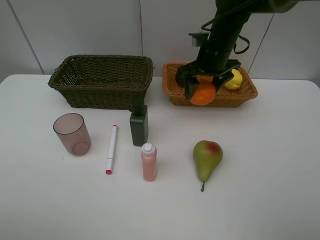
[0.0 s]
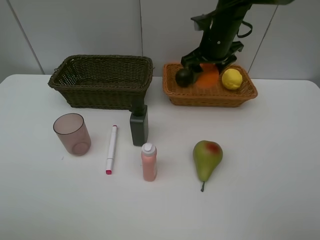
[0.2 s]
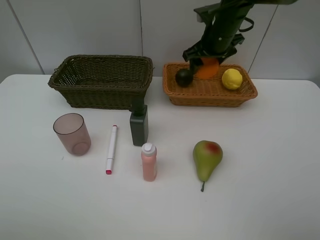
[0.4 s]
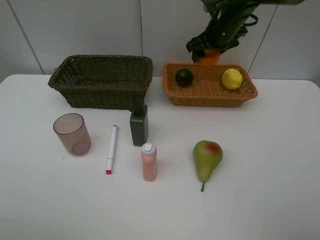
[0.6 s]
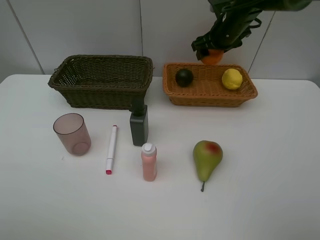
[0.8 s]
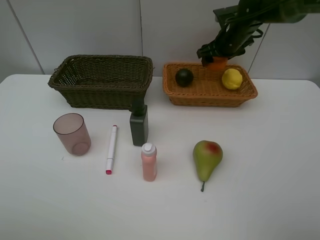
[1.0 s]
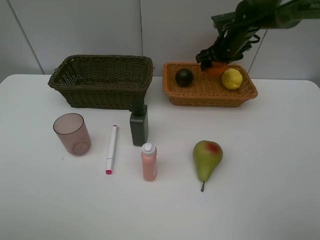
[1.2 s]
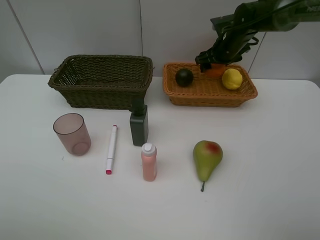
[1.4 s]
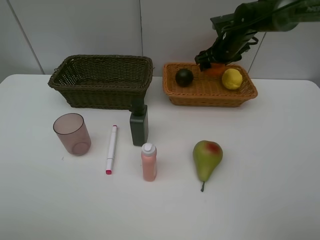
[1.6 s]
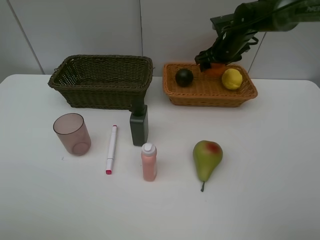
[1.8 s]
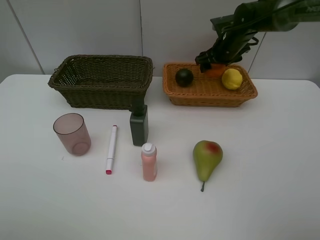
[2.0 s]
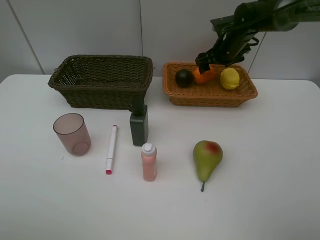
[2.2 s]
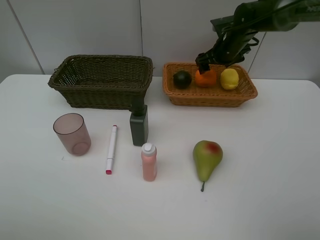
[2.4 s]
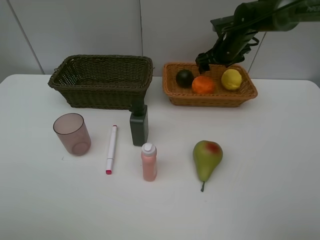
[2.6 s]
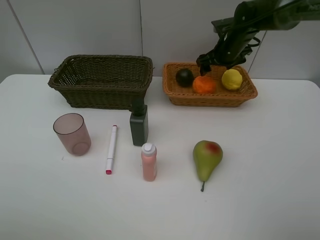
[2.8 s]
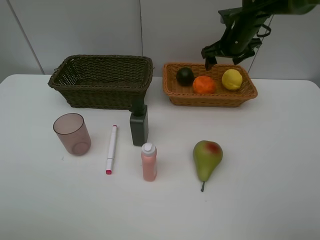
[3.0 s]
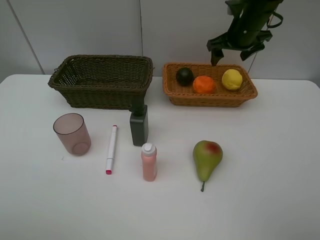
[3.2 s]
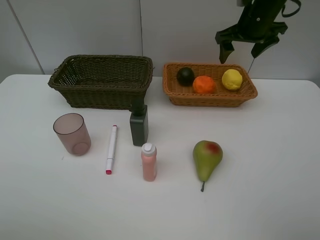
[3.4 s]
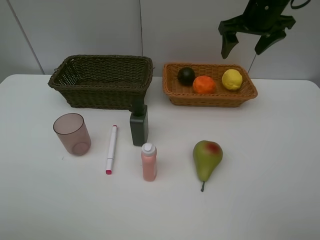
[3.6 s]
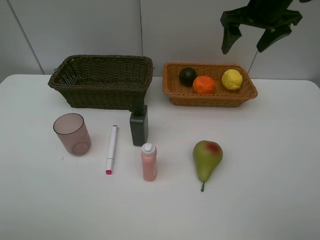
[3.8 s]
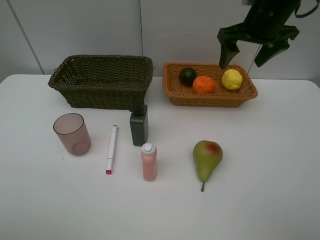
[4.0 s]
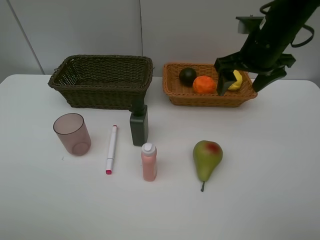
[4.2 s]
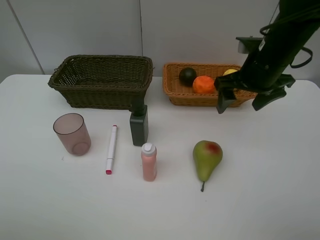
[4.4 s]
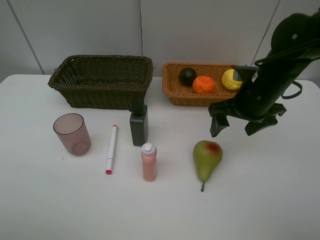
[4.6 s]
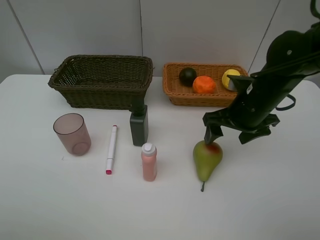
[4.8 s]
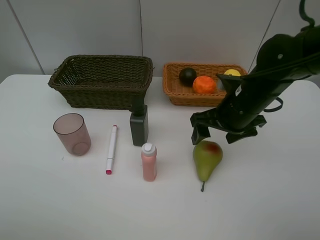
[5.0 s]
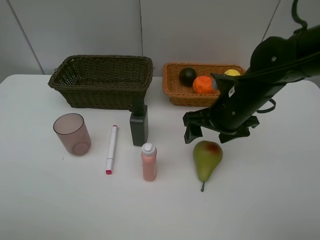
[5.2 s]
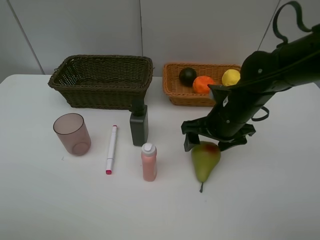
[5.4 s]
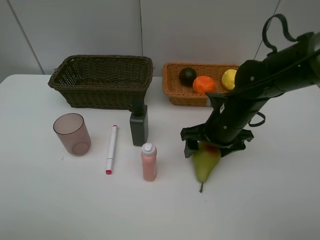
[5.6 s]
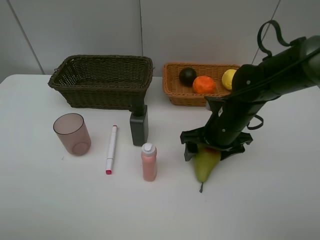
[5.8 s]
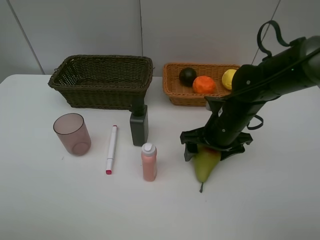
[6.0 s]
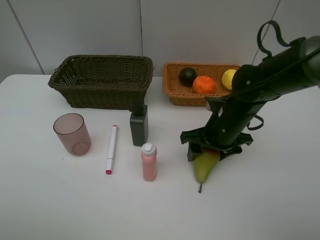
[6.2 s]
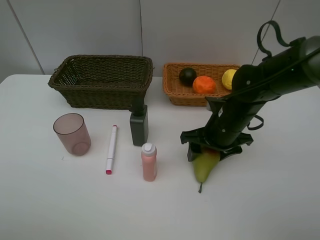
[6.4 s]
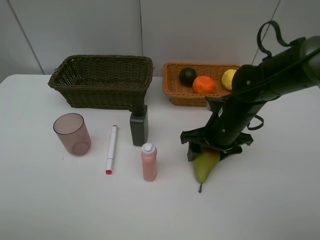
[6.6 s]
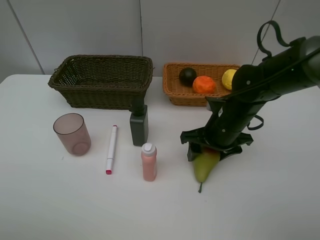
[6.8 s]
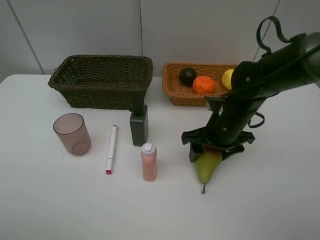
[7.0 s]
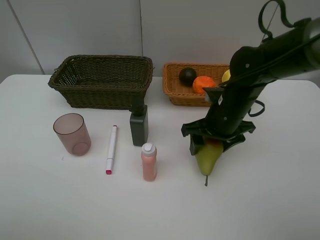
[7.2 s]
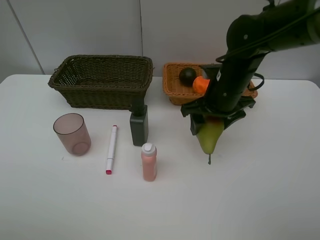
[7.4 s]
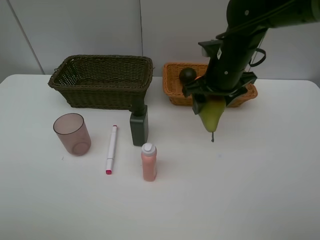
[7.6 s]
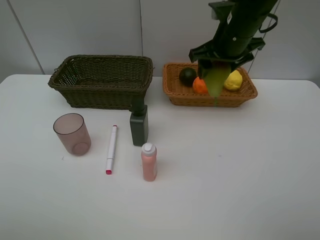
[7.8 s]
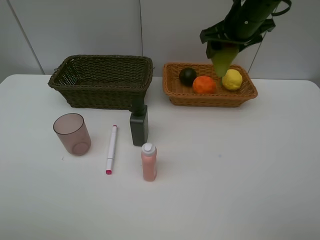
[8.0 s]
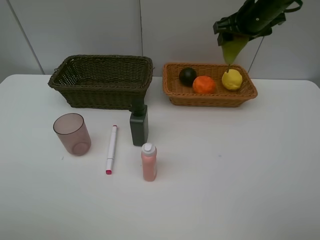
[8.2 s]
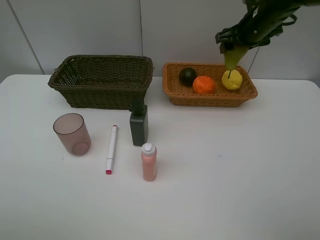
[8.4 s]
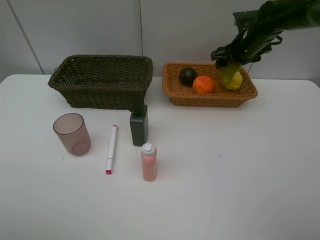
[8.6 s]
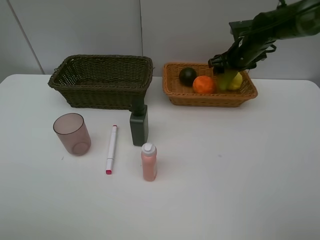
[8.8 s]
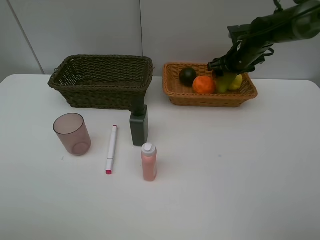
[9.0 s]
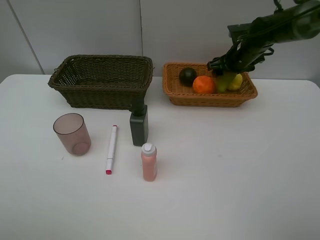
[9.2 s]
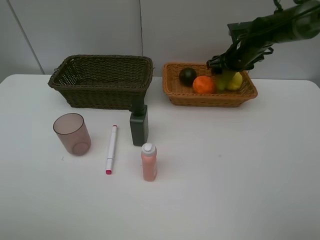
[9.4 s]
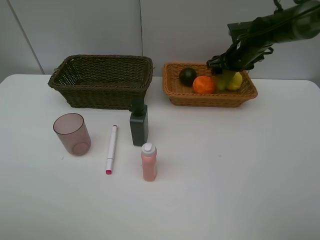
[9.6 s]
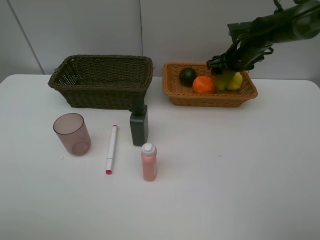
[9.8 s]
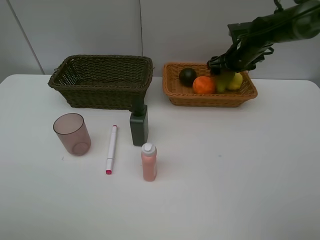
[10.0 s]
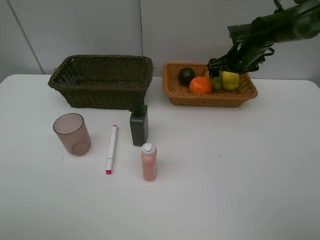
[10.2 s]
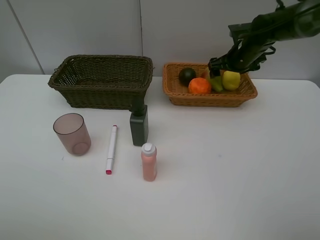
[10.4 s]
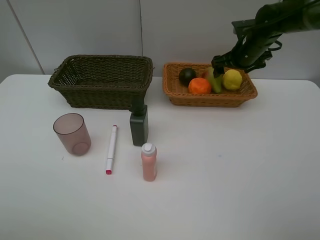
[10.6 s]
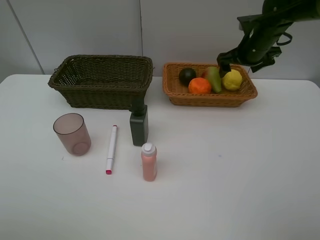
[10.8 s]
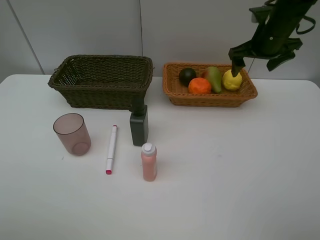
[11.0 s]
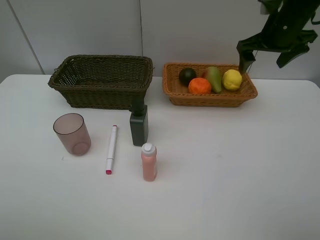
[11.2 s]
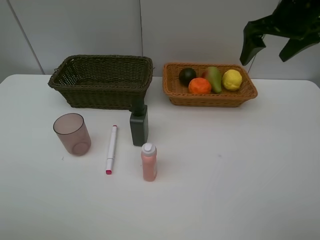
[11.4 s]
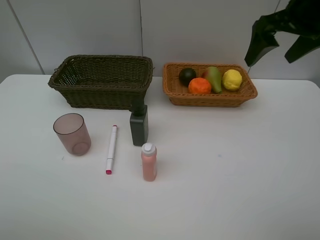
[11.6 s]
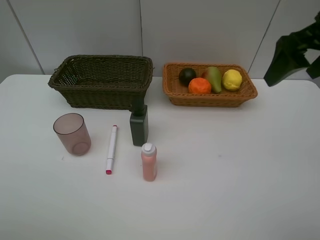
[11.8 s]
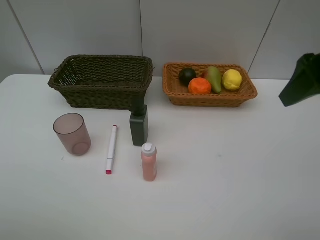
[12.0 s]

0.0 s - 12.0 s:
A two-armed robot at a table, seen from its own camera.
Task of the whole recording: Place multiple objects separately in different baskets.
Step, 0.0 s - 2.8 s: Place the orange in the light basket with right gripper.
Step, 3.0 s - 7.2 s: Pick up the pear with right gripper.
Step, 7.4 s - 10.6 s: Place the pear in the light basket with right gripper.
0.0 s - 1.6 s: The right gripper shifts some 10 cm forward and to the right.
1.6 s - 3.0 s: The grippers move only a little.
3.0 s - 4.4 s: The right gripper heads backward, covering approximately 15 cm.
4.4 s - 6.0 s: The right gripper heads downward and to the left, covering about 10 cm.
6.0 s - 7.6 s: The right gripper goes some 10 cm upward and forward, and closes up.
7.6 s - 9.0 s: The right gripper moves forward and to the right, about 15 cm.
9.0 s - 10.4 s: The right gripper opens up.
10.4 s - 12.0 s: The right gripper shifts some 30 cm backward and upward.

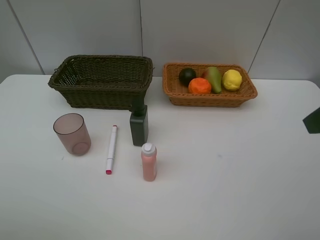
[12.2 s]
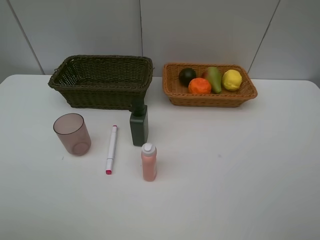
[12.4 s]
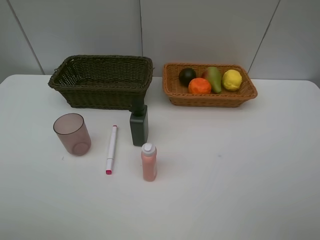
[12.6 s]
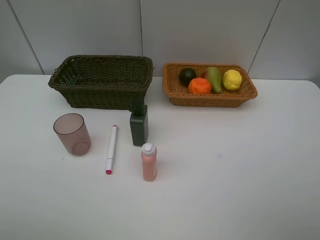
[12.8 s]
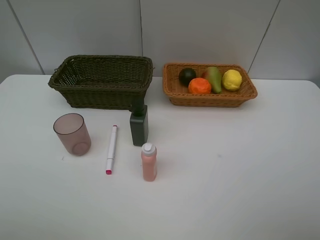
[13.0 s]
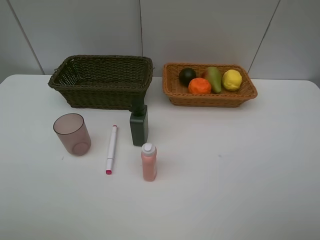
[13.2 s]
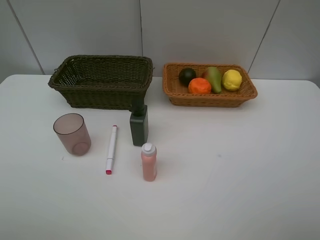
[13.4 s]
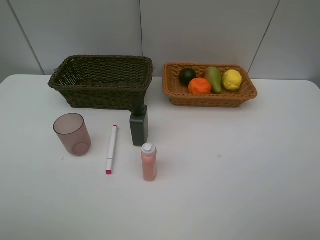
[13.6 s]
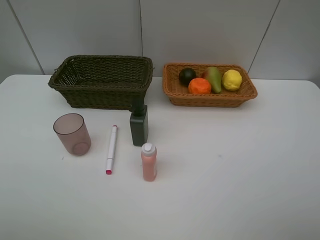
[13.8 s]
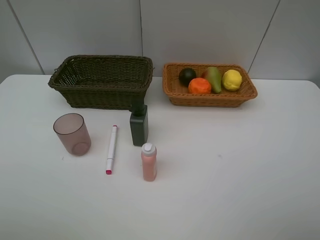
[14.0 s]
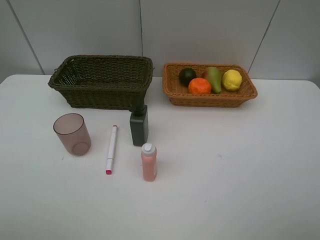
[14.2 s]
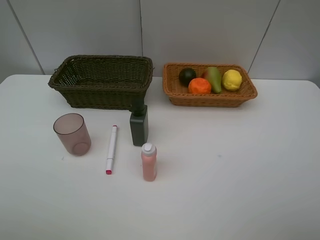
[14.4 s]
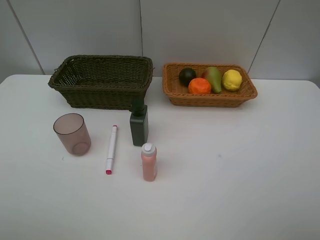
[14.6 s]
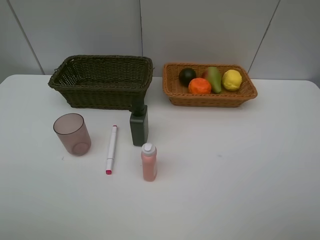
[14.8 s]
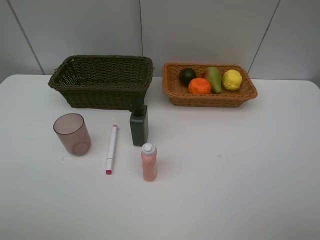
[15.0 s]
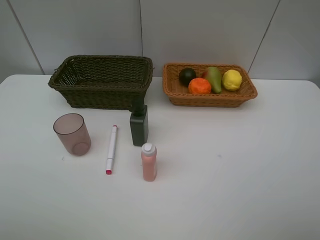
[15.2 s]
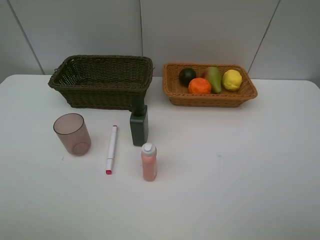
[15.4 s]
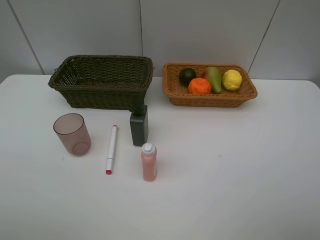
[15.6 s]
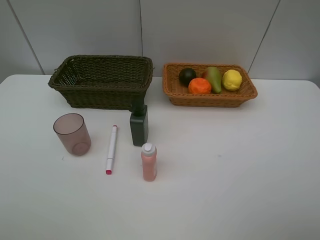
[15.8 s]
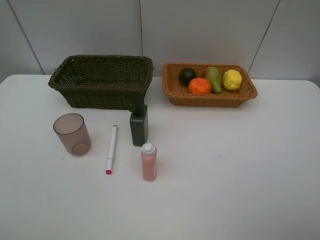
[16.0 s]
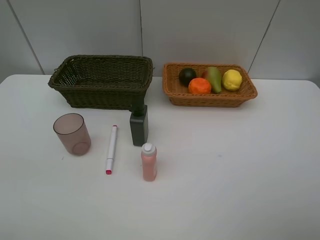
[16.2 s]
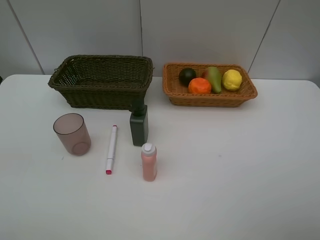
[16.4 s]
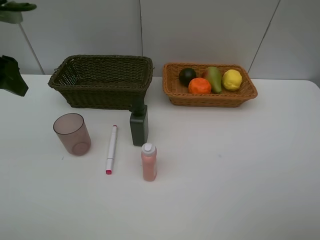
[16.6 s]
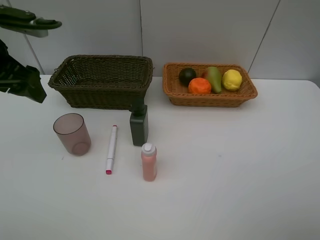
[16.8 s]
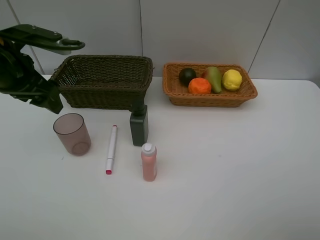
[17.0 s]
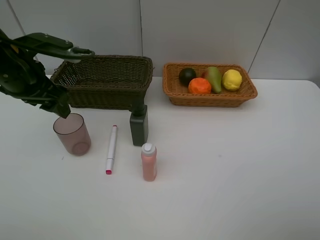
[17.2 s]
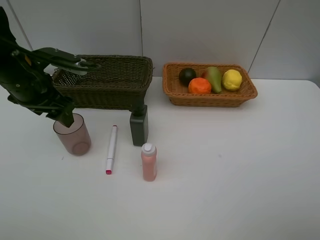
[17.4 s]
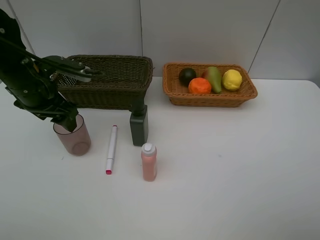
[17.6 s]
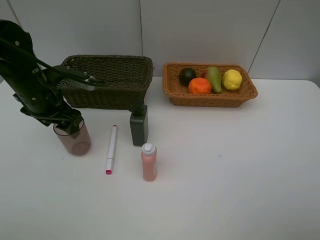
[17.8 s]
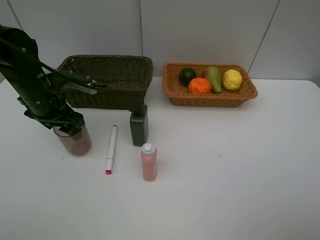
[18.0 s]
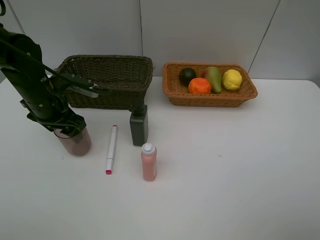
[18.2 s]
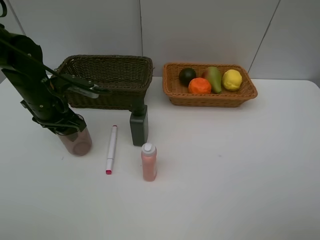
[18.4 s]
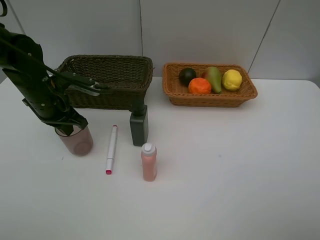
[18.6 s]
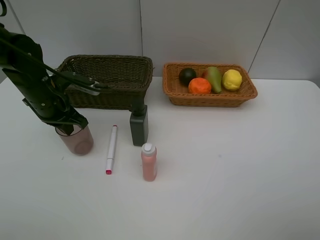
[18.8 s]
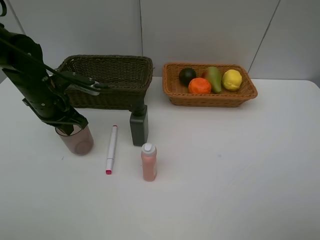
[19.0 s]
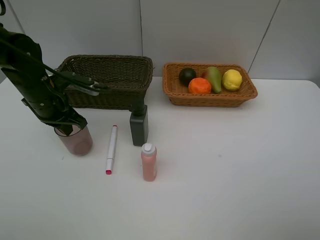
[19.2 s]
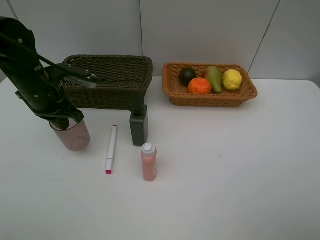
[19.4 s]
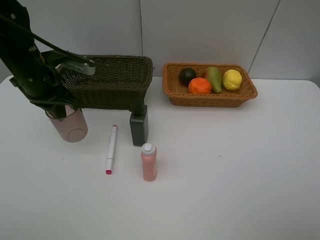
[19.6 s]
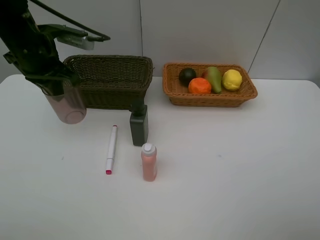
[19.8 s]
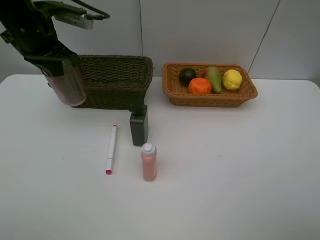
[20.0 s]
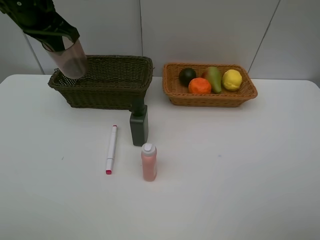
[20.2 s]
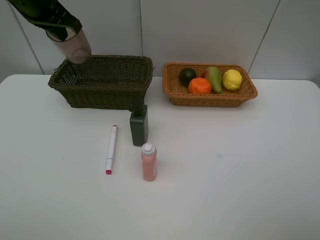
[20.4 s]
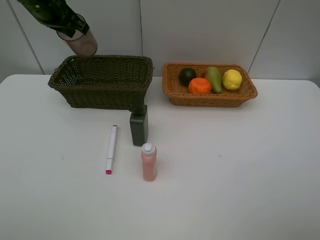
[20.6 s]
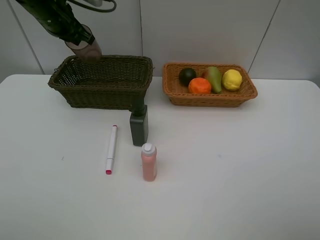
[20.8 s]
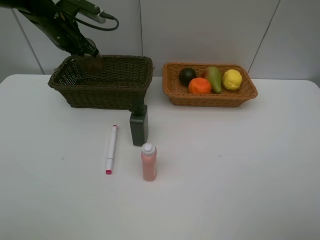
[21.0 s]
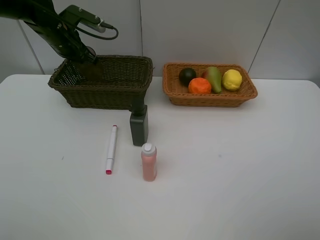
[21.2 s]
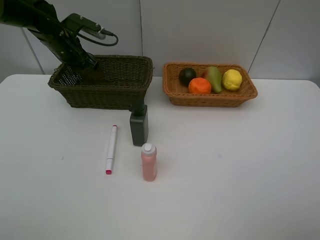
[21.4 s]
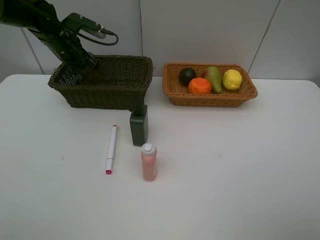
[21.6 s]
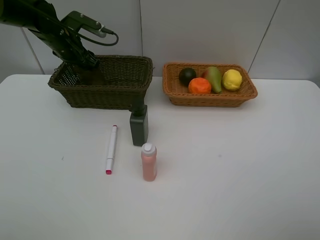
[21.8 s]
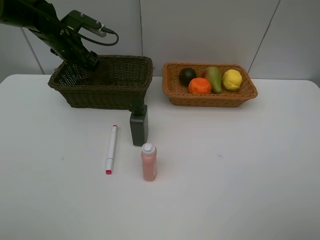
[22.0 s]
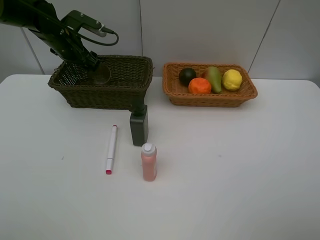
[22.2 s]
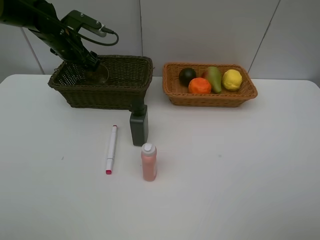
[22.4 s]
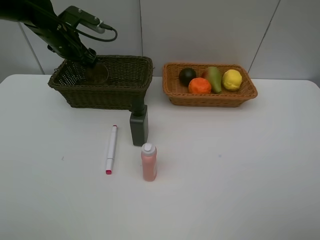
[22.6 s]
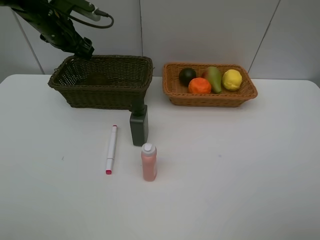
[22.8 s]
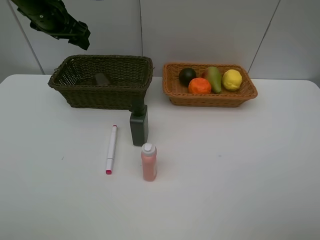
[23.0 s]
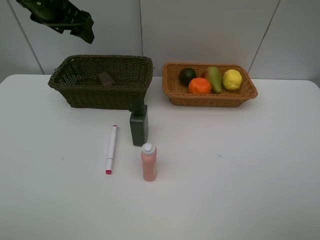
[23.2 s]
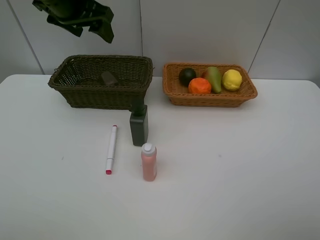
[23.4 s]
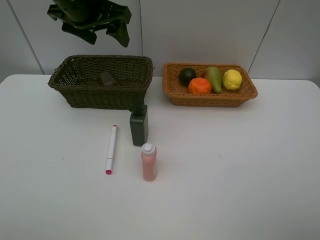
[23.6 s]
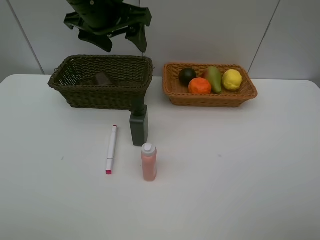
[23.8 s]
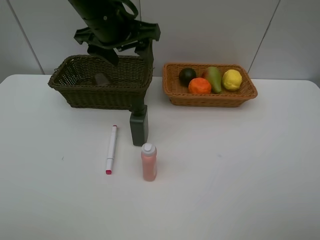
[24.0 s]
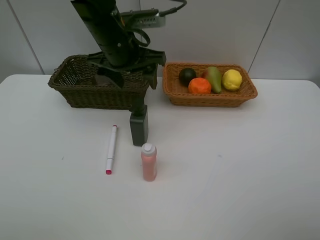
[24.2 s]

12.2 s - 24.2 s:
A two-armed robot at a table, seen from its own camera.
Task of the whole recording: Place multiple objects separately in different baskets.
Step, 12.2 s - 19.4 s: Pick up the red cup with left gripper.
Step, 19.6 s - 23.0 s: Place the red cup in the dark basket with left gripper.
13.8 s - 15.2 s: The two grippers keep their place.
15.2 s - 16.6 s: The left gripper goes approximately 25 cm forward.
16.6 s - 18.2 s: The left gripper travels downward by roughly 15 cm.
18.2 s - 19.8 s: The left gripper moves upward, roughly 10 cm, and closes its fingers.
19.8 s - 21.2 s: The left gripper travels forward and downward by some 15 cm.
21.2 s - 22.6 s: The left gripper opens up.
22.6 s - 24.2 s: The left gripper shifts roughly 20 cm to the right and backward.
